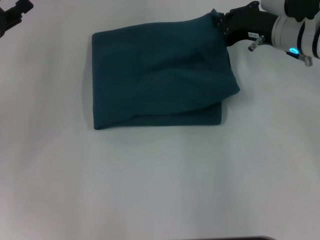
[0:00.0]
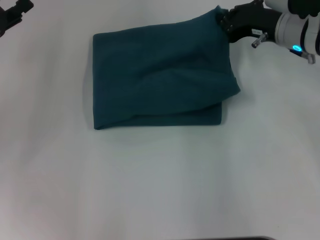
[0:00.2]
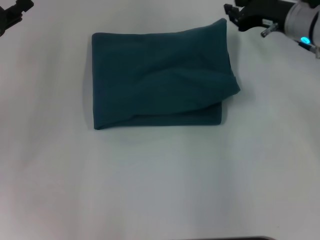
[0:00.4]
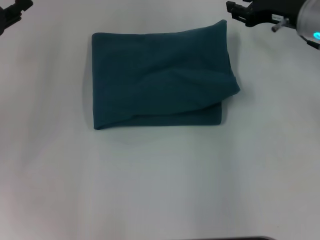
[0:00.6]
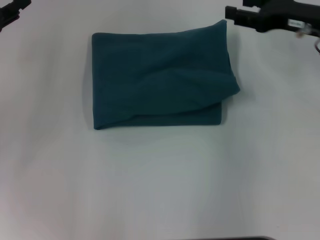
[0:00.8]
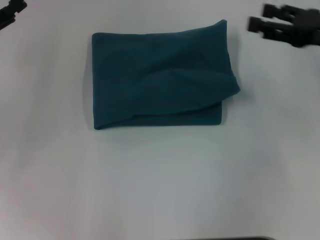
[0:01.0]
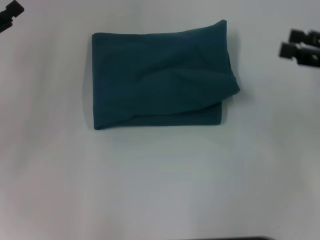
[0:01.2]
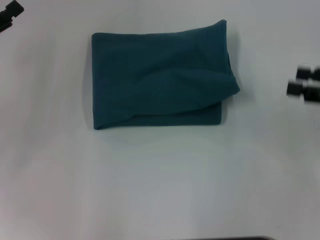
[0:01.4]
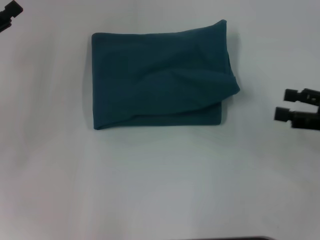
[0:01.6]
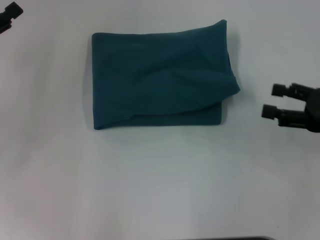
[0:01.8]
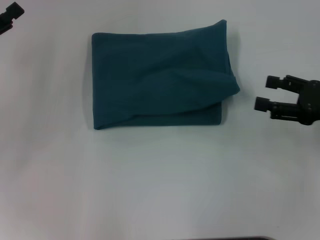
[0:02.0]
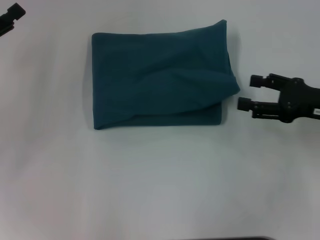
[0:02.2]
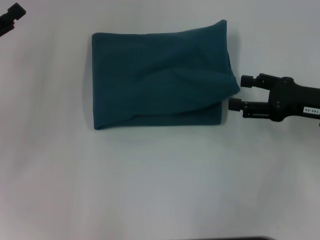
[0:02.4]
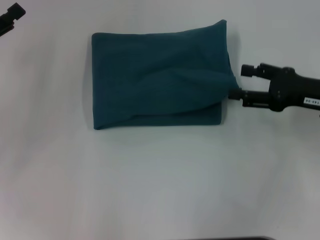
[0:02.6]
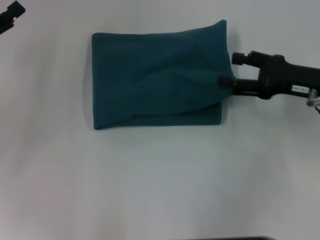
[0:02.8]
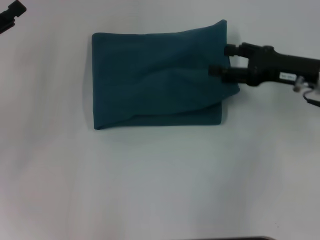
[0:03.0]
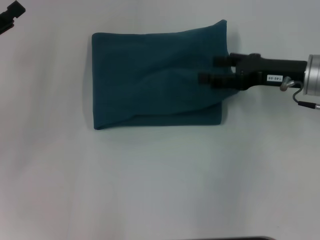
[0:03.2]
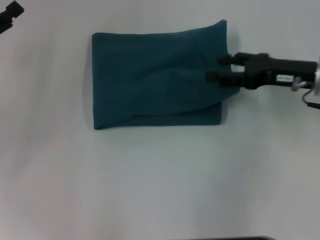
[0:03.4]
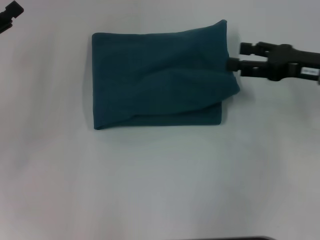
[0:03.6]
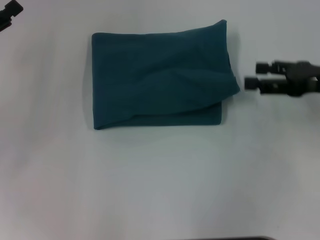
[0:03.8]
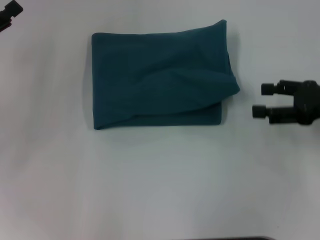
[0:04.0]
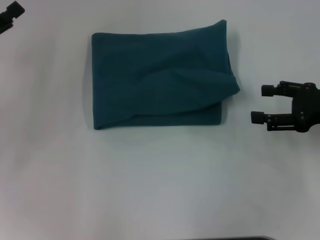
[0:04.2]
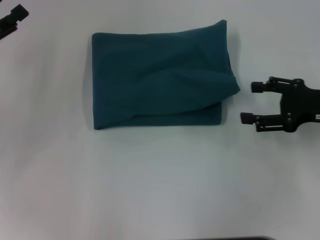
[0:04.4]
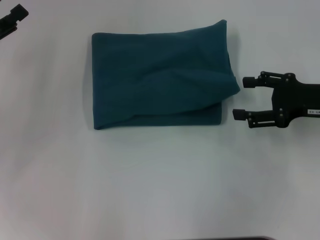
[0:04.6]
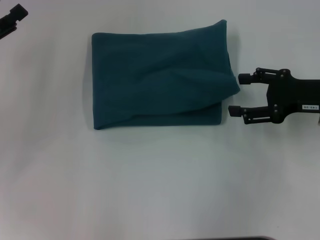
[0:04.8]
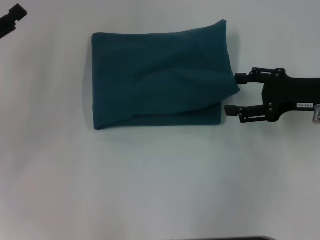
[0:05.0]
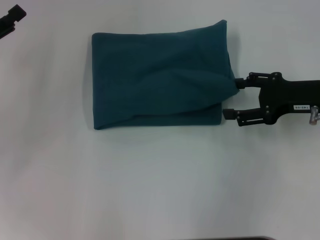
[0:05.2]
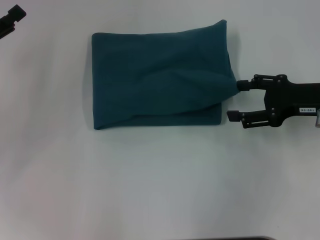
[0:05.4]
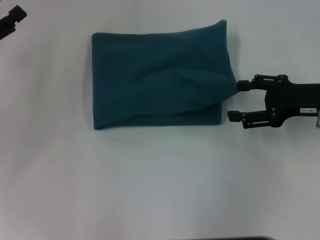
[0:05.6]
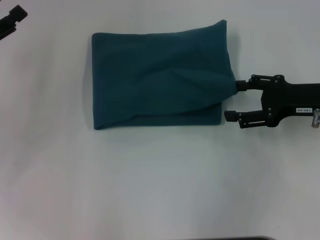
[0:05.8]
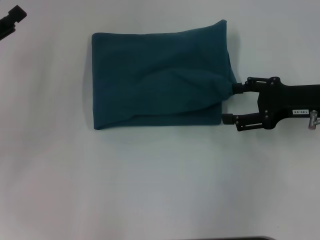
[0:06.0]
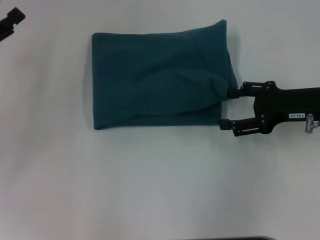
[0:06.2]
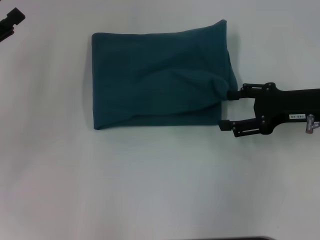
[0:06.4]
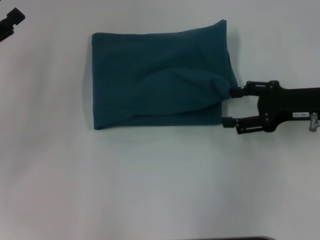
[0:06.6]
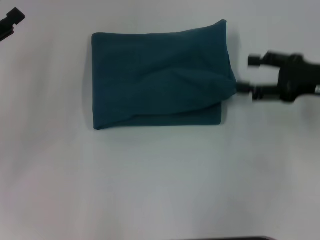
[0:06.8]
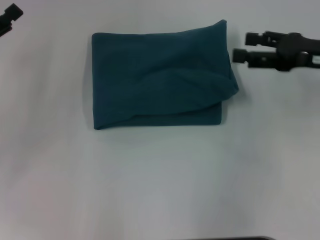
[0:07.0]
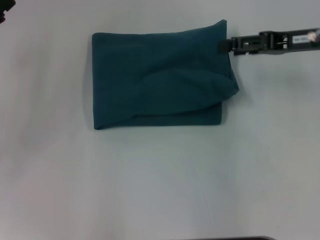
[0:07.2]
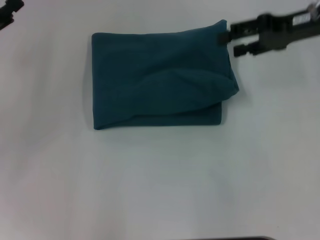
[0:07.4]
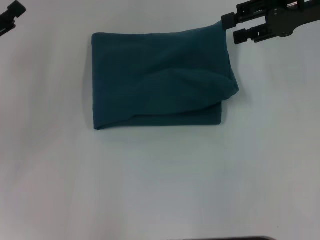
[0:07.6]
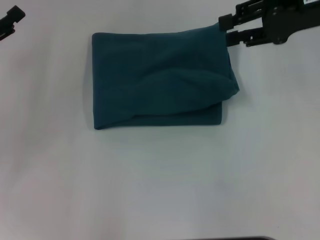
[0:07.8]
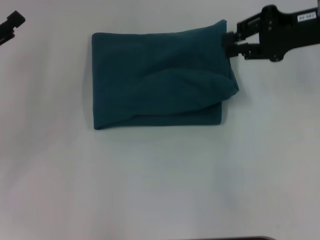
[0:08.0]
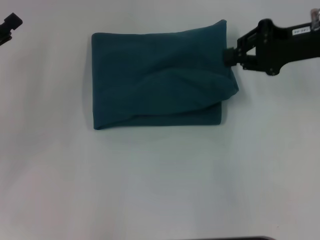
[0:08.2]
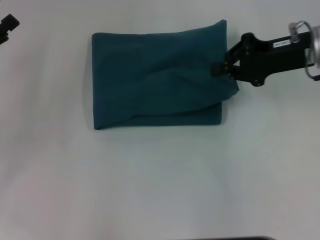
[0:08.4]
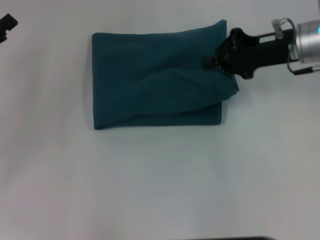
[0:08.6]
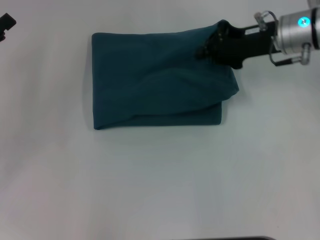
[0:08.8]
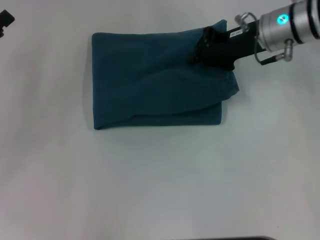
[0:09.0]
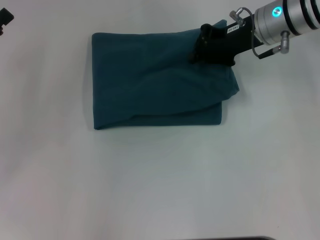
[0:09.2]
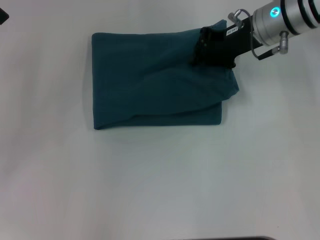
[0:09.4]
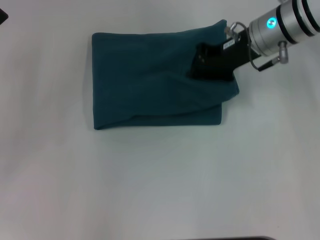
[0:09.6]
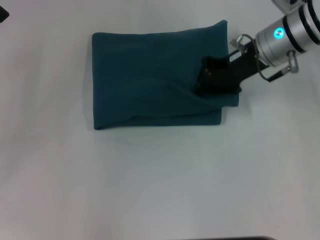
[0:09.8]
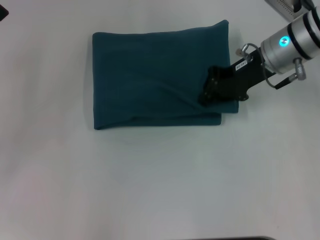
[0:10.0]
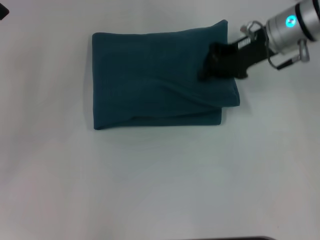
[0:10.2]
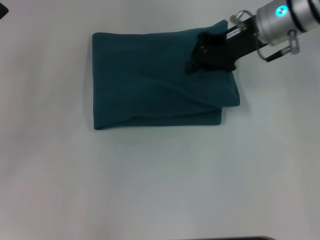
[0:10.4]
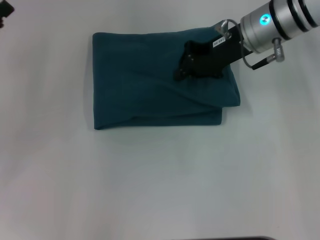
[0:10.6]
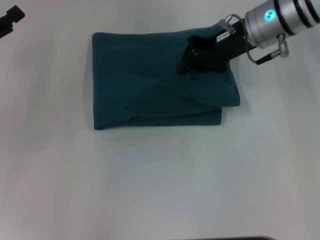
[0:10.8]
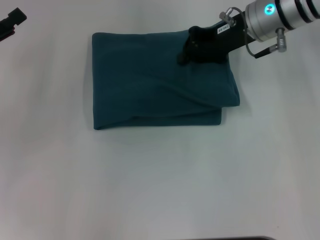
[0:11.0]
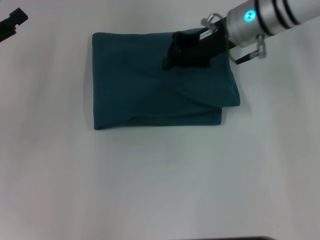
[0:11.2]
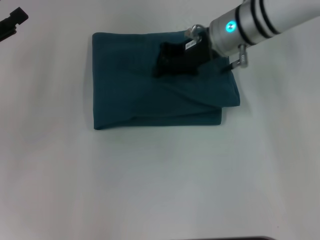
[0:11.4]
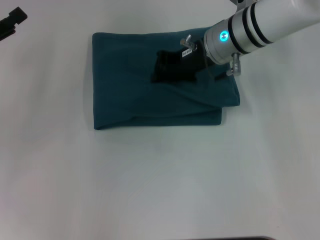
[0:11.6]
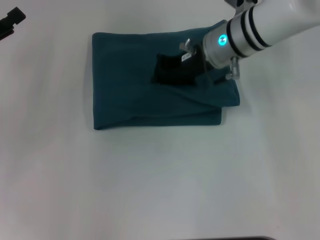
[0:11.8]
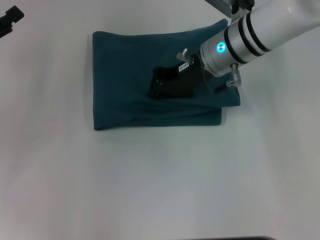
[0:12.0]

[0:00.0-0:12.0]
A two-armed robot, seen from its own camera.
0:00.0 to 0:01.6: The right gripper moves backward and to the right, some 20 cm, and opens its fingers.
0:01.6 to 0:03.0: The right gripper travels to the left and forward by about 10 cm.
0:03.0 to 0:04.4: The right gripper moves some 5 cm.
0:04.4 to 0:06.0: The grippers make only small movements.
0:06.0 to 0:07.6: The right gripper heads upward and forward, covering approximately 15 cm.
0:07.6 to 0:09.0: The right gripper moves downward and to the left, about 10 cm, and closes its fingers.
0:09.0 to 0:10.4: The grippers make only small movements.
0:10.4 to 0:12.0: The right gripper travels to the left by approximately 5 cm.

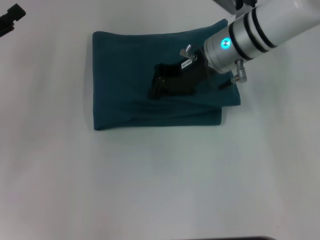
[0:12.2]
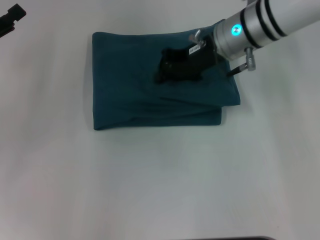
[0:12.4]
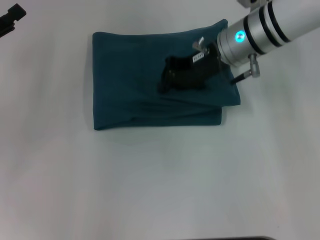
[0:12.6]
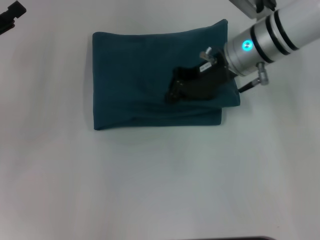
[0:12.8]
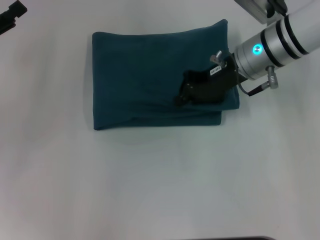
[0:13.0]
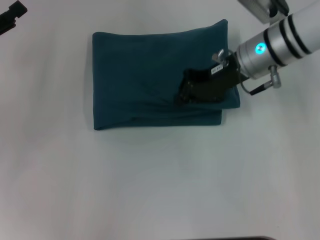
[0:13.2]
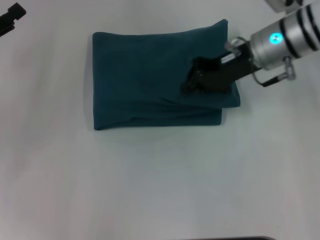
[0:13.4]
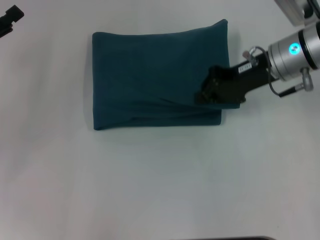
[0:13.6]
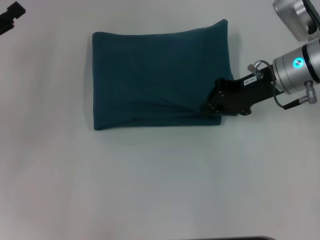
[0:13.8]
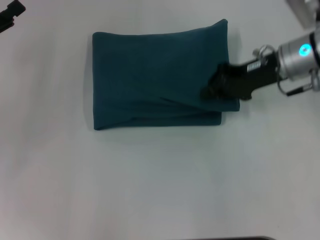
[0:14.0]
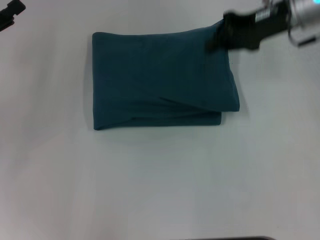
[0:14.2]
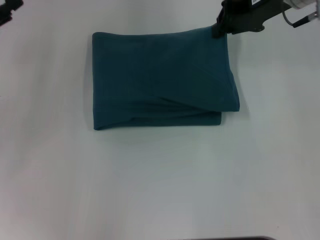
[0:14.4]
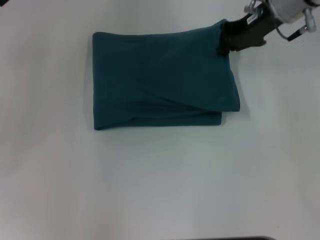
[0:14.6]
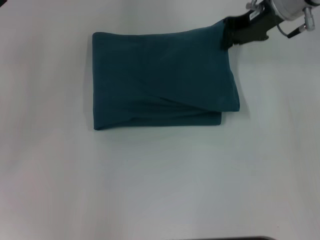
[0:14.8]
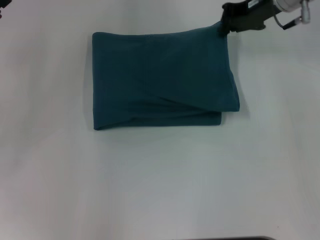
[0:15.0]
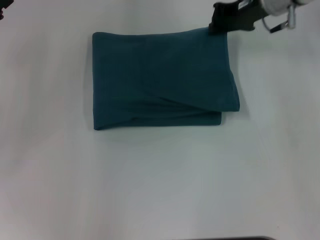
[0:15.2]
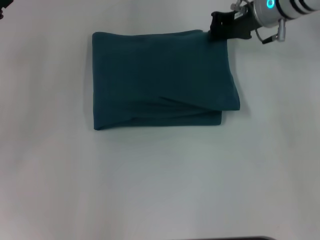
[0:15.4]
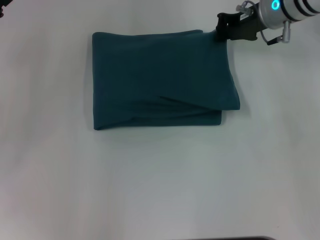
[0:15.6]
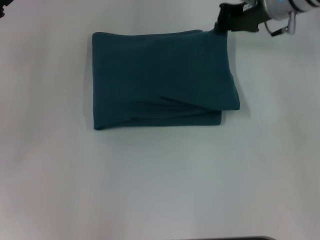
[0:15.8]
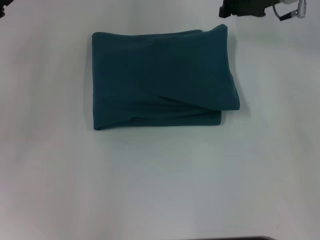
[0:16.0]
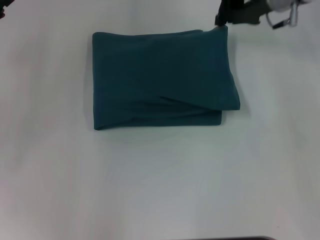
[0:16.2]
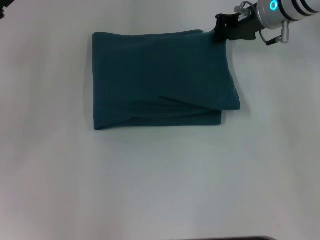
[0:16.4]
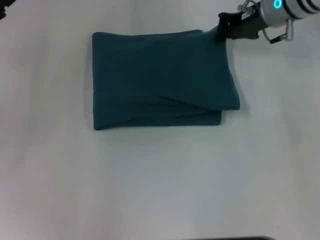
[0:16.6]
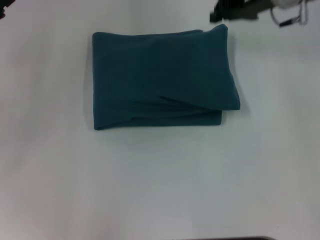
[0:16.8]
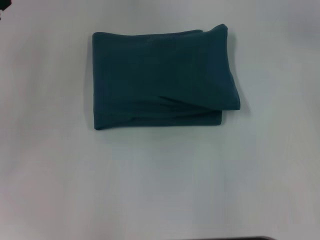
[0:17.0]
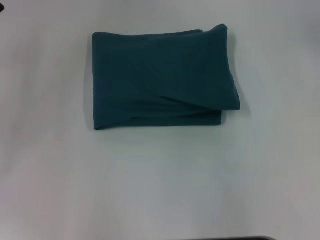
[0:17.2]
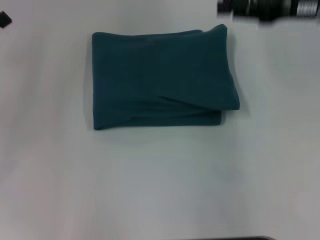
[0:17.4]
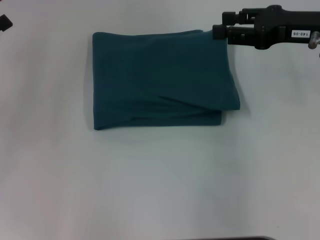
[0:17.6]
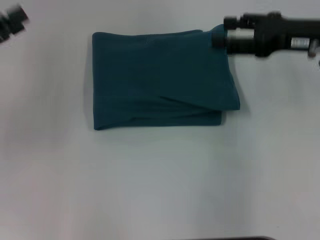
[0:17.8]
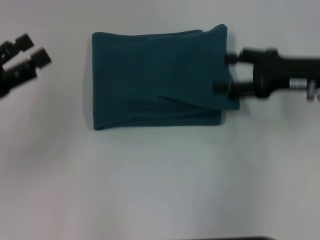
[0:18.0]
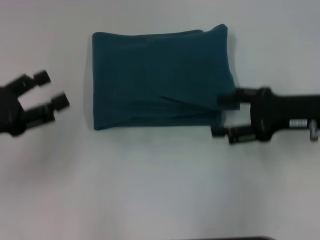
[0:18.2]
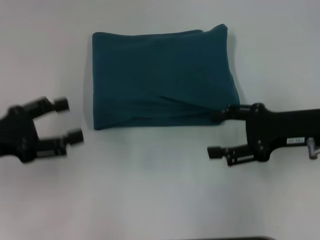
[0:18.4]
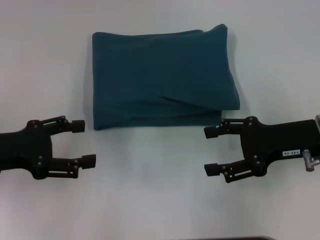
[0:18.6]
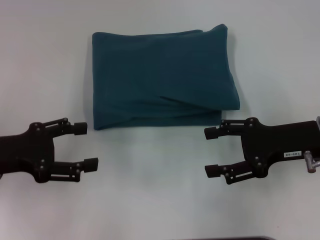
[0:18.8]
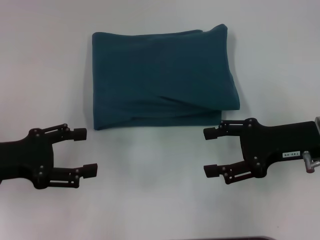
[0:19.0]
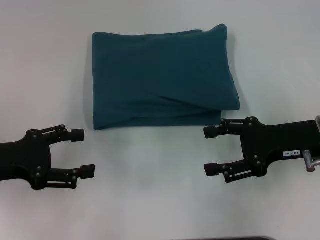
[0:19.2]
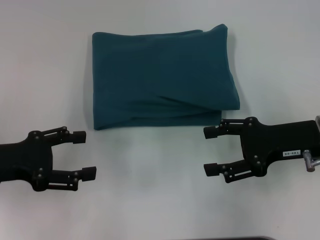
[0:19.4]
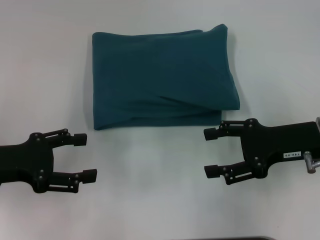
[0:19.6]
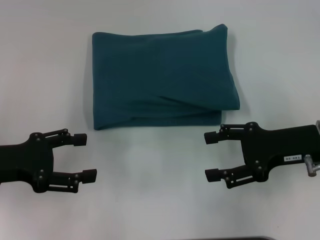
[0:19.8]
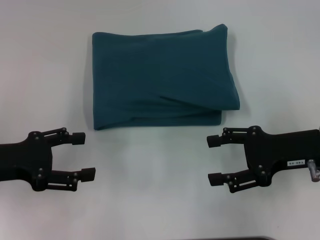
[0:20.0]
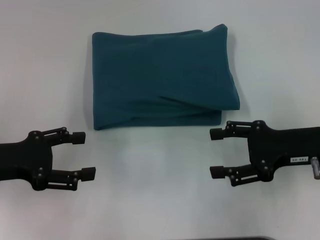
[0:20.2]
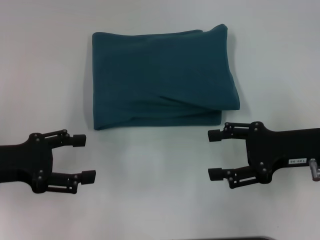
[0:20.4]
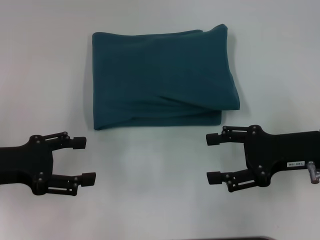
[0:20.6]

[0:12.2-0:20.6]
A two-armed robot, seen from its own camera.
0:12.2 to 0:13.6: The right gripper travels to the right by about 10 cm.
0:13.6 to 0:15.0: The right gripper travels forward and upward by about 10 cm.
0:15.0 to 0:16.4: The grippers move only a little.
0:16.4 to 0:17.8: The right gripper shifts some 15 cm backward and to the right, goes upward and returns, some 10 cm each way, and opens its fingers.
0:17.8 to 0:19.2: The left gripper travels backward by some 5 cm, while the right gripper travels backward and downward by approximately 10 cm, and opens up.
0:19.2 to 0:20.6: The grippers make only small movements.

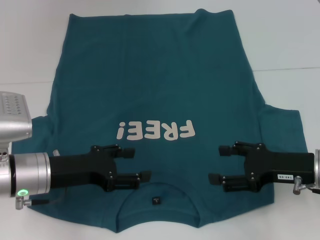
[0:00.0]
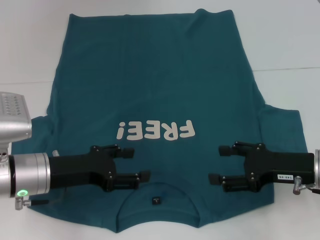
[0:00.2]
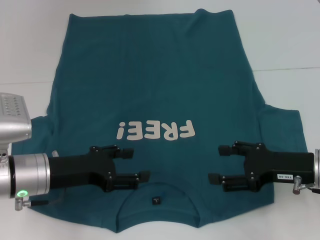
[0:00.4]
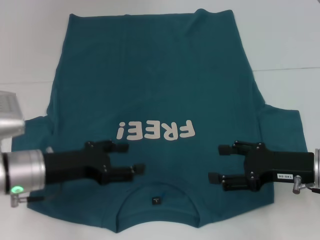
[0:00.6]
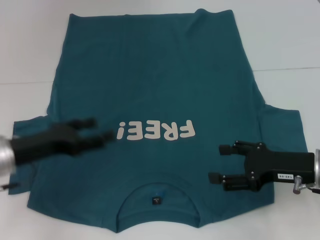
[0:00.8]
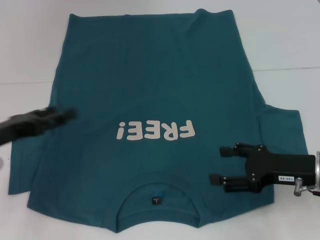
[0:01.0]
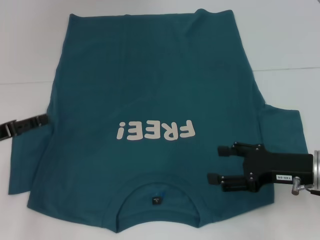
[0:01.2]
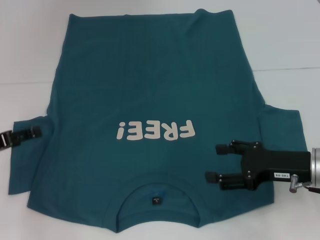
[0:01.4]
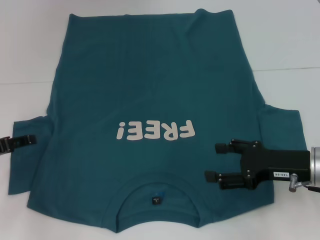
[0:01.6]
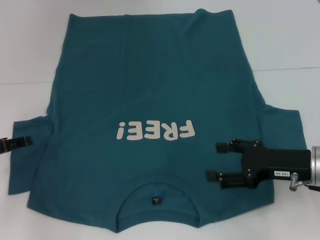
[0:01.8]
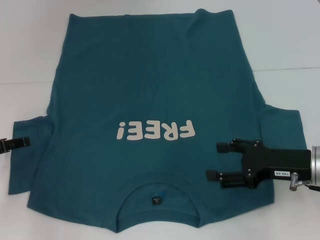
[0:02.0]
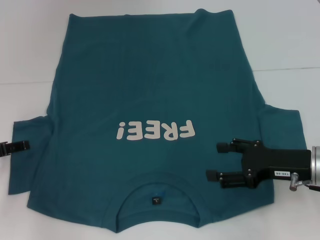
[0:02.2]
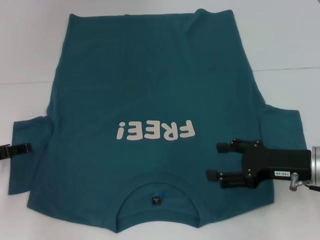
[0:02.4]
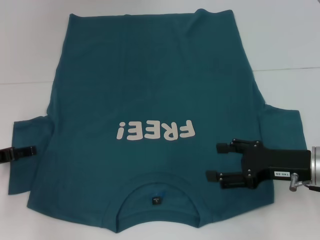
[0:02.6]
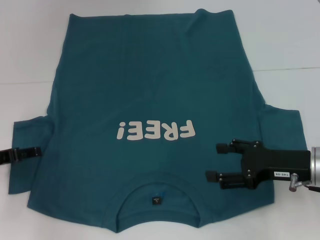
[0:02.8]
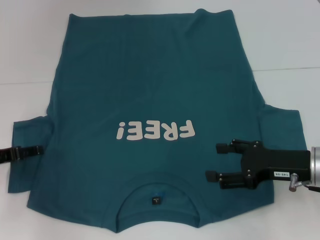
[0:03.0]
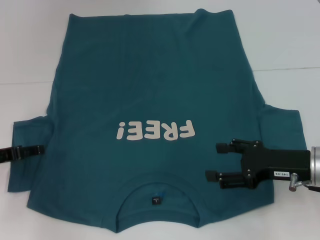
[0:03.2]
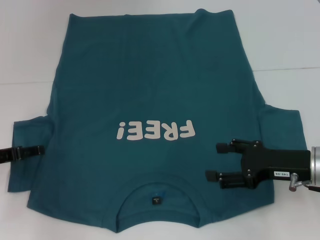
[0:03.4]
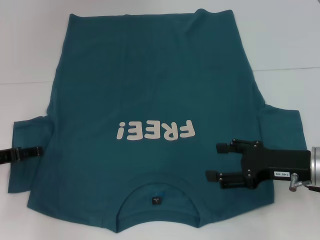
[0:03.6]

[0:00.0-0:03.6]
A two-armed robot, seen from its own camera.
0:00.0 to 0:01.8: The left gripper heads to the left, covering about 15 cm.
0:01.8 to 0:03.6: The grippers make only small movements.
